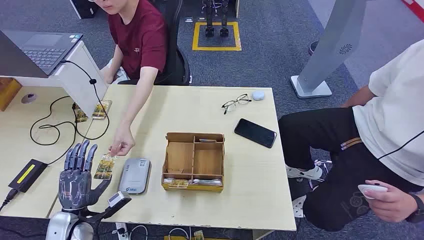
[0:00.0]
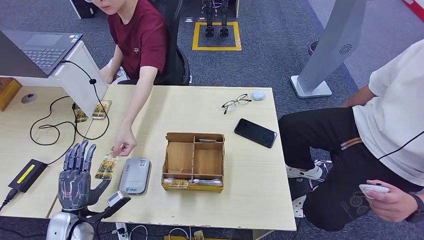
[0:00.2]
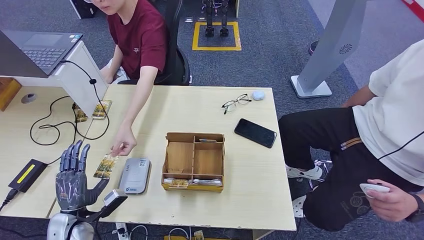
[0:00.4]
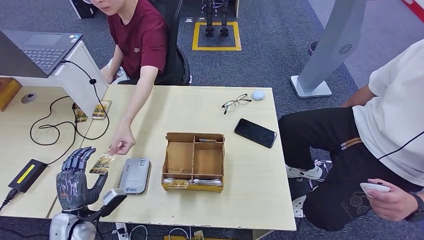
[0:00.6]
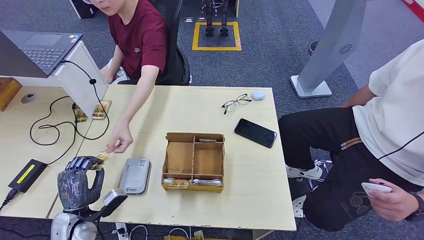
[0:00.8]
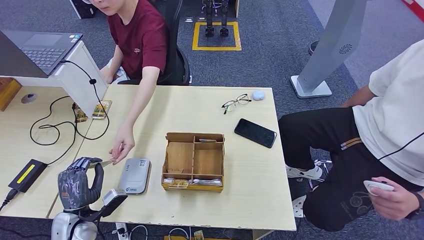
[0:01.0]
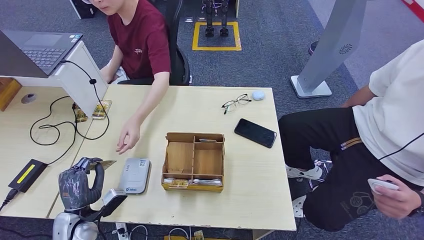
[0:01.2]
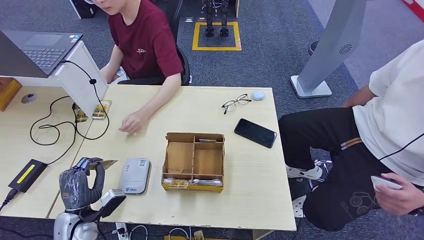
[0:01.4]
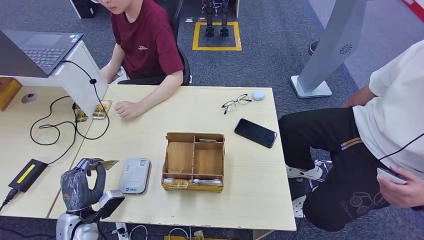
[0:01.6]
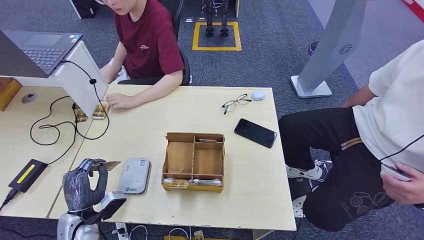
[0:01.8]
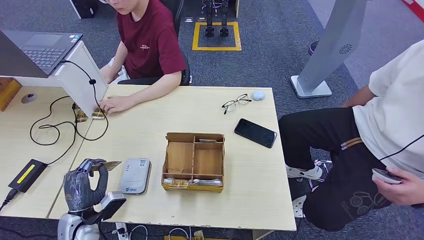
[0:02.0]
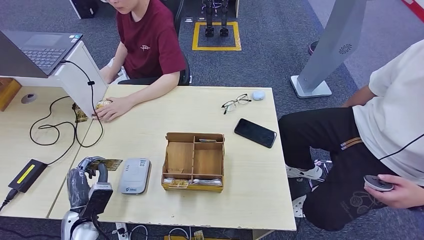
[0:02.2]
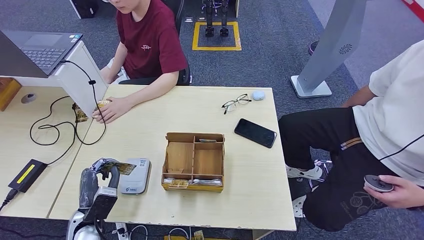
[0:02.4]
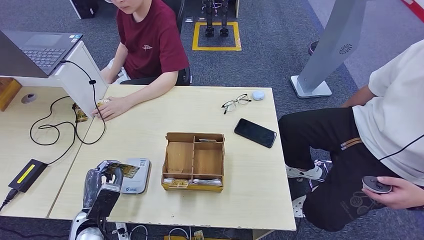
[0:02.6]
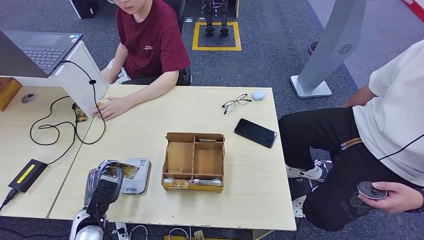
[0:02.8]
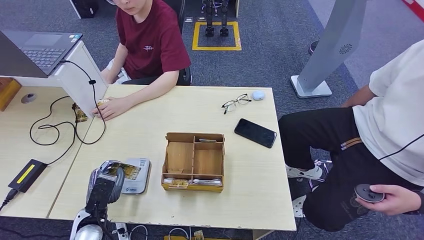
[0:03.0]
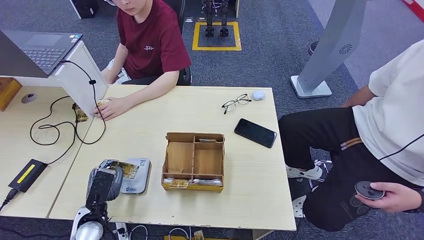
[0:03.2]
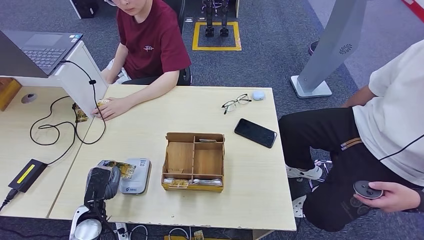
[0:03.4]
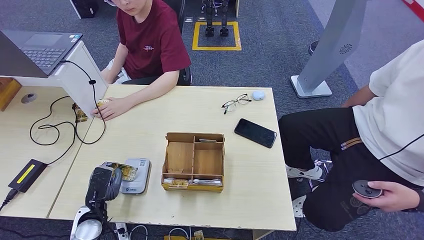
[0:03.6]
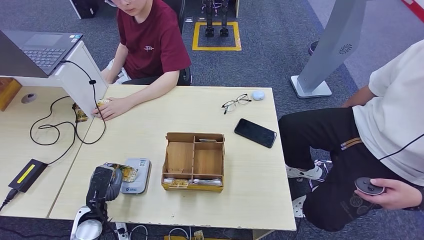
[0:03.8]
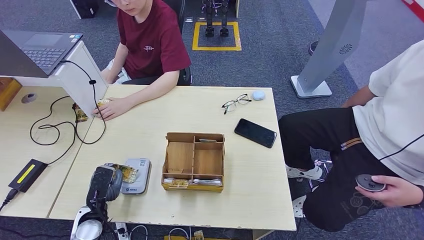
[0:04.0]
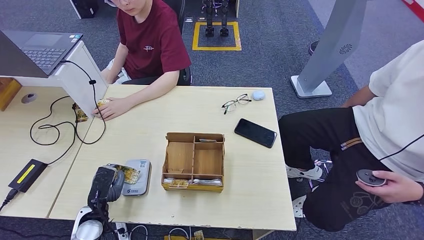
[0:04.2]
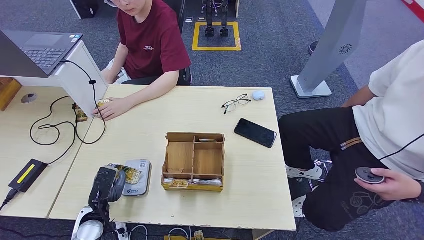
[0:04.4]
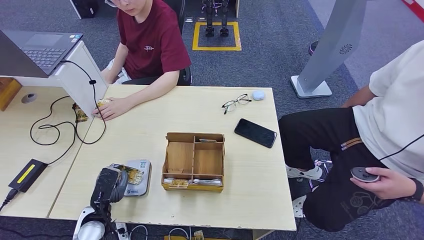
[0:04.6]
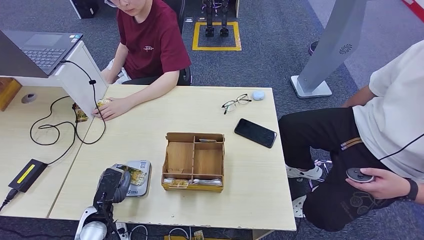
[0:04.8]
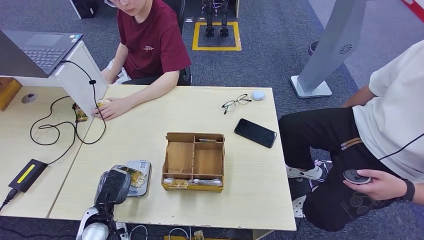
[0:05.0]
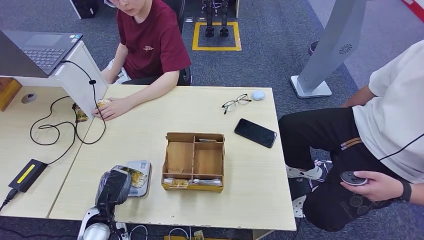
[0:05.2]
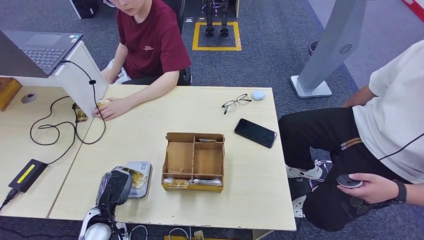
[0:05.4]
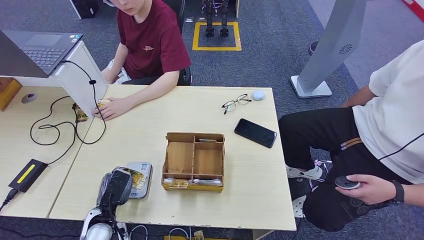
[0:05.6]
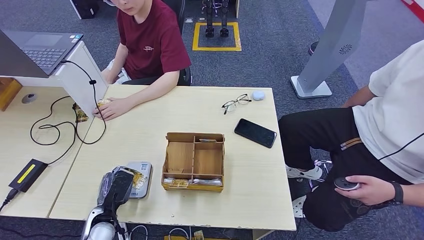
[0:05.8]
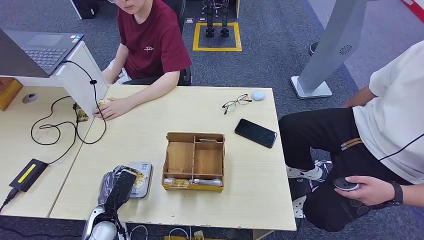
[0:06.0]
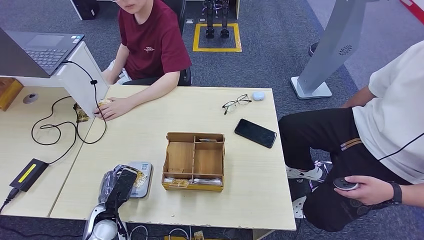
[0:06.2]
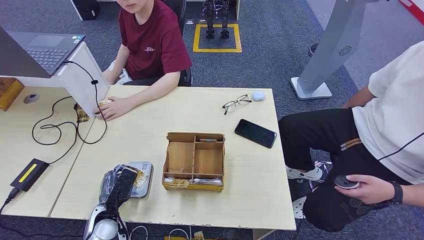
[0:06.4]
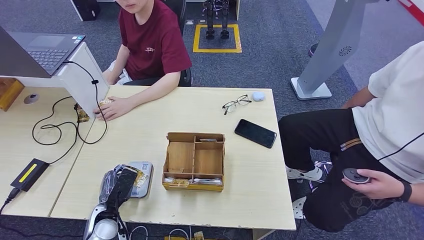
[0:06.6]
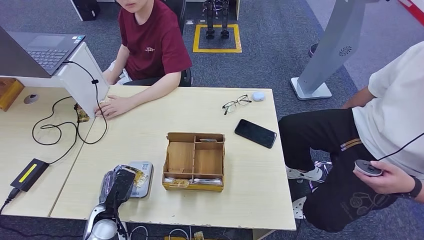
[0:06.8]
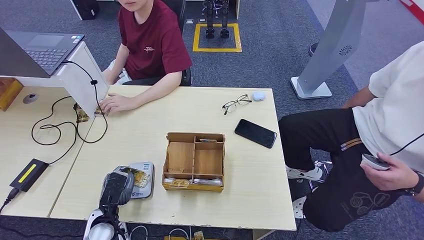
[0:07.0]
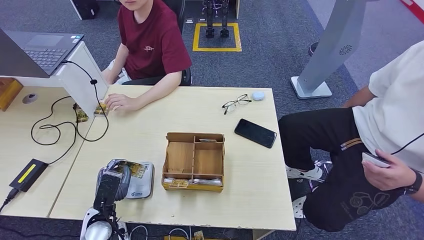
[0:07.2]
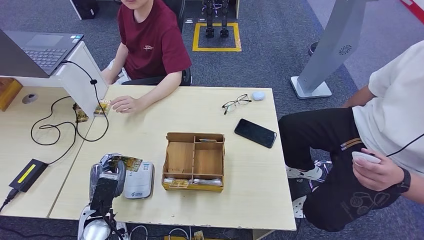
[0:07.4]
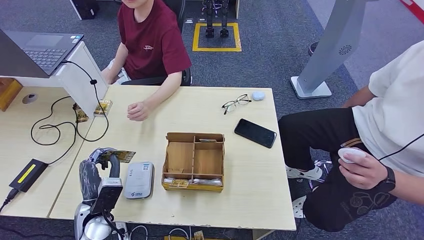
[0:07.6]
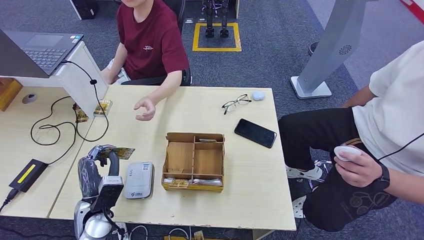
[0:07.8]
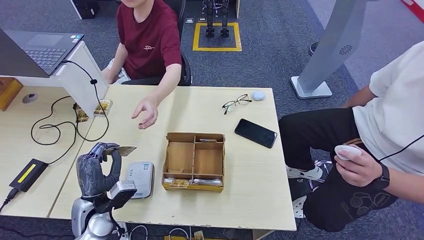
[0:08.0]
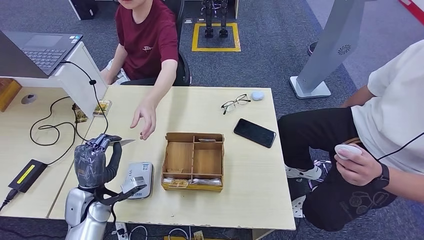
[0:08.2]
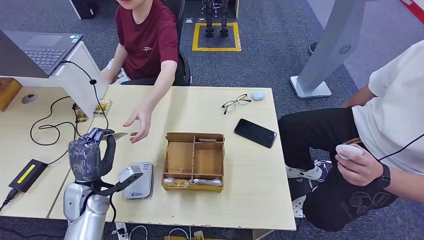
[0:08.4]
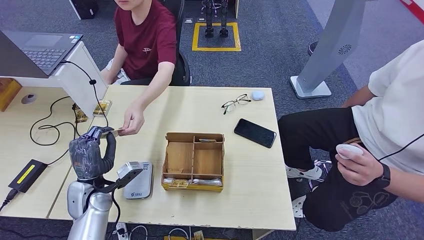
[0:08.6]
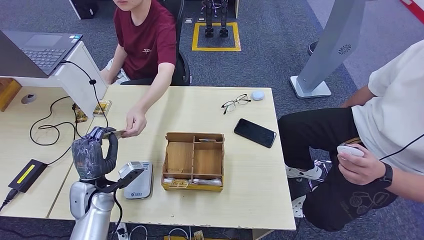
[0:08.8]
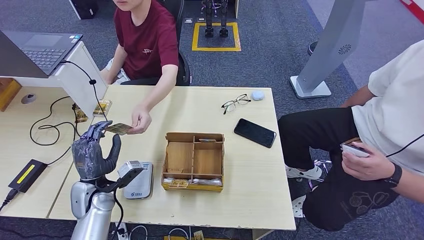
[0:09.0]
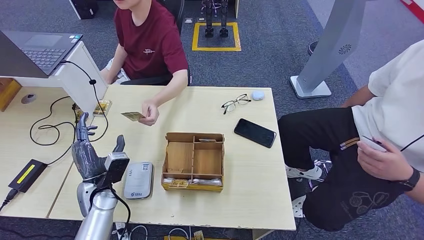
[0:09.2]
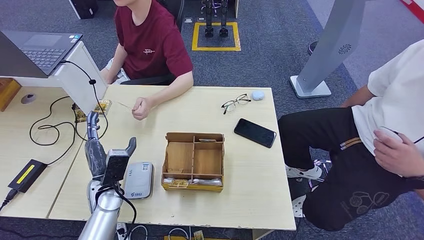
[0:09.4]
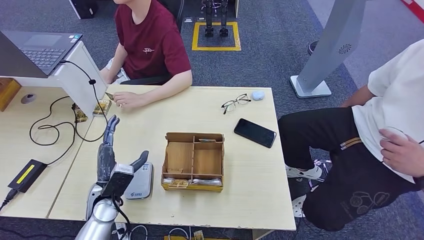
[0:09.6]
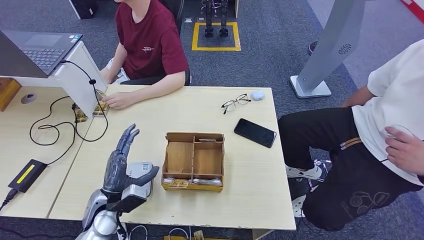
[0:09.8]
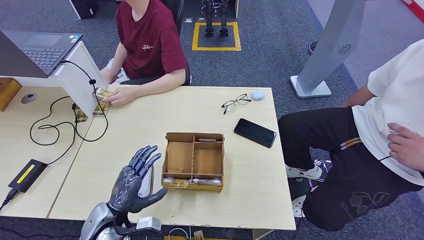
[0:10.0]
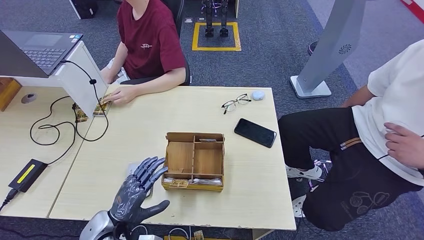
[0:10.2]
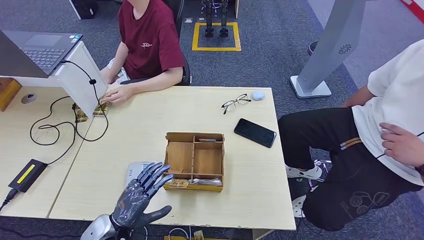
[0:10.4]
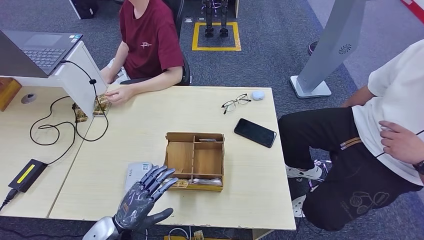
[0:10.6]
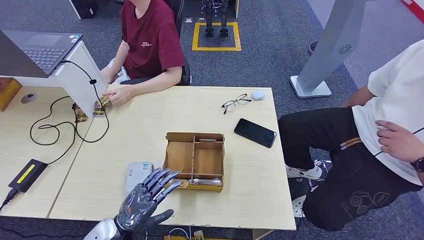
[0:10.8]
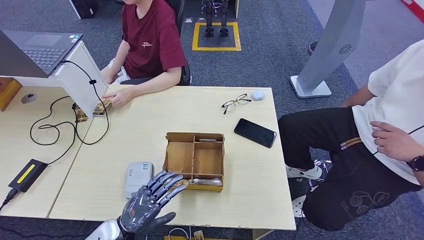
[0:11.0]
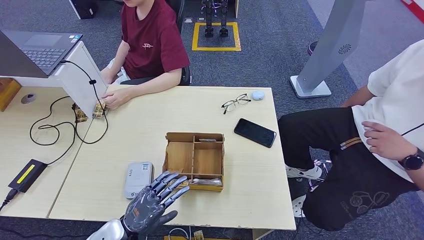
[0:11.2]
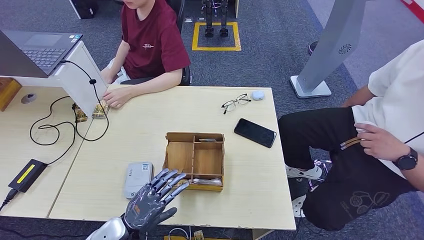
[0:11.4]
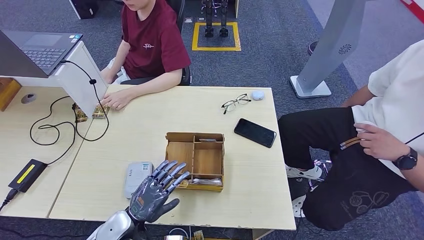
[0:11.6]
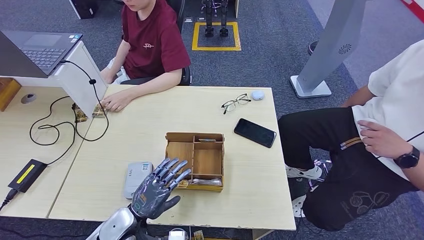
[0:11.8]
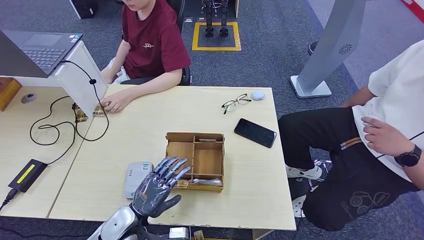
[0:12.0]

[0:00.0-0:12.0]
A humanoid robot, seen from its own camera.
Step, 0:00.0 to 0:00.8: Take the ID card from the person's hand.
Step, 0:01.2 to 0:04.4: Place the ID card on the card reader.
Step, 0:04.8 to 0:09.2: Hand the ID card to the person.
0:03.0 to 0:06.0: There are only small adjustments of the hands.
0:06.0 to 0:07.6: The left hand is displaced upward by roughly 5 cm.
0:07.6 to 0:09.0: The left hand moves forward, some 5 cm.
0:09.0 to 0:10.4: The left hand travels backward by some 10 cm.
0:10.4 to 0:12.0: The hands stay close to where they were, moving slightly.

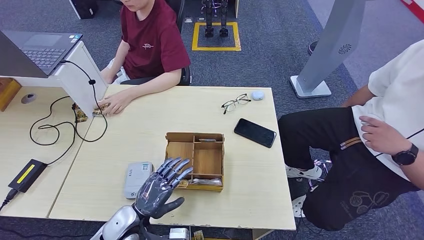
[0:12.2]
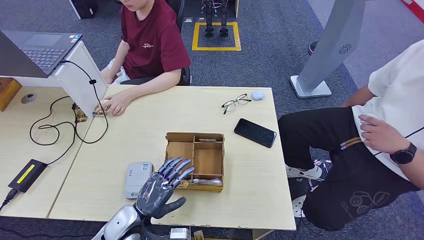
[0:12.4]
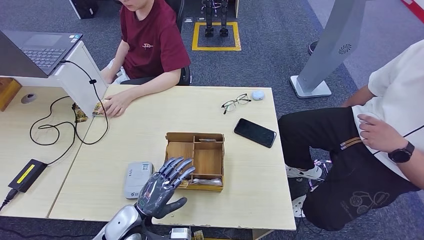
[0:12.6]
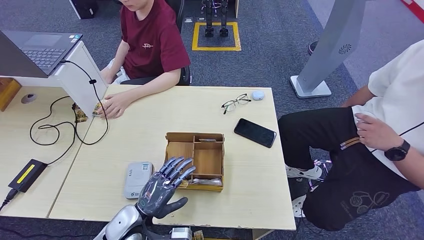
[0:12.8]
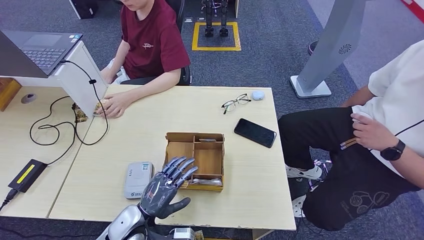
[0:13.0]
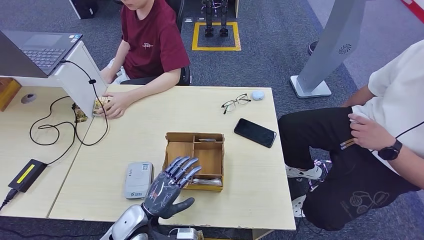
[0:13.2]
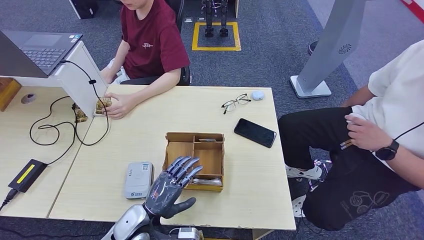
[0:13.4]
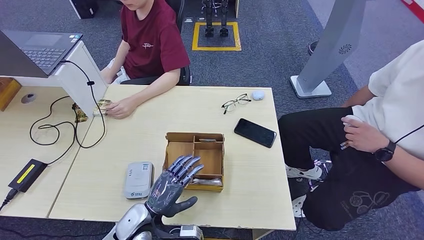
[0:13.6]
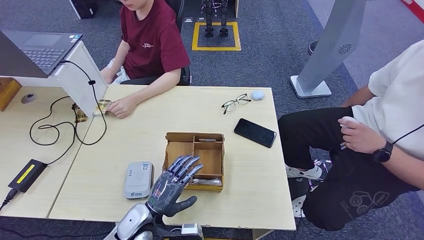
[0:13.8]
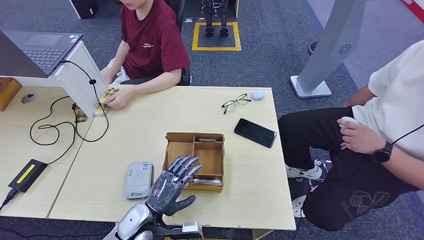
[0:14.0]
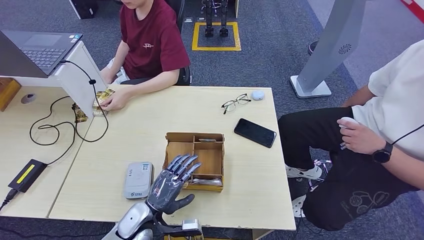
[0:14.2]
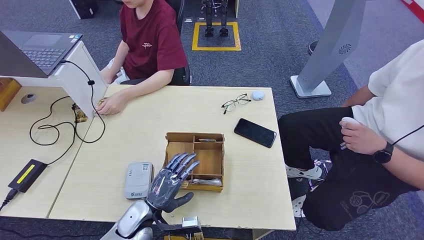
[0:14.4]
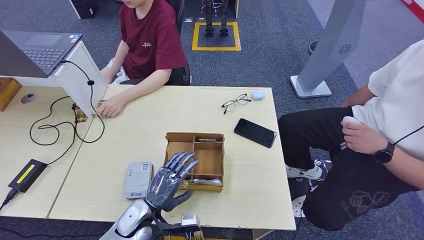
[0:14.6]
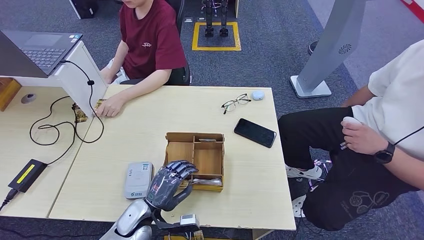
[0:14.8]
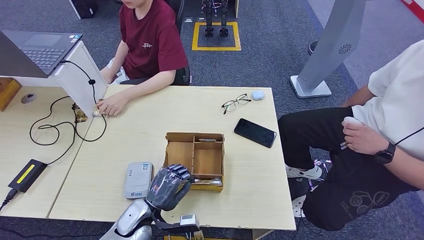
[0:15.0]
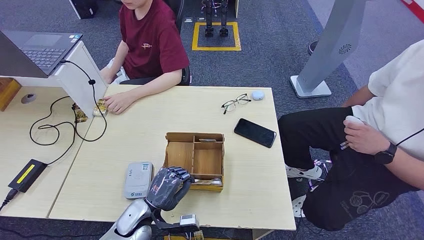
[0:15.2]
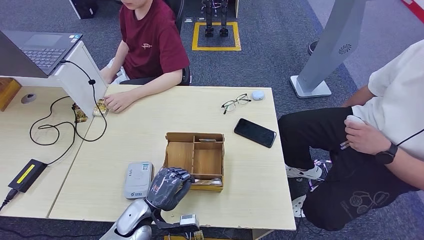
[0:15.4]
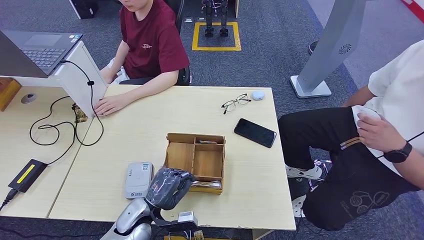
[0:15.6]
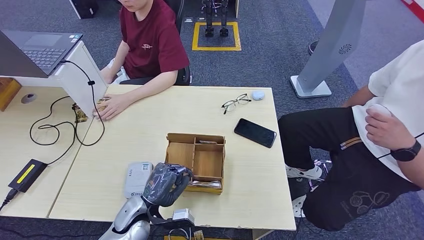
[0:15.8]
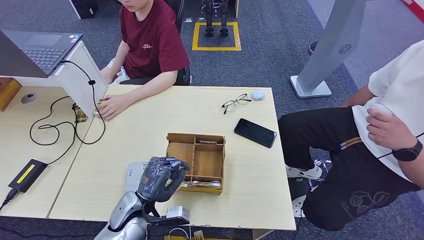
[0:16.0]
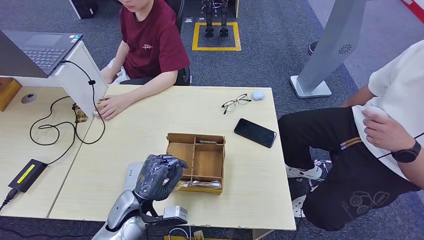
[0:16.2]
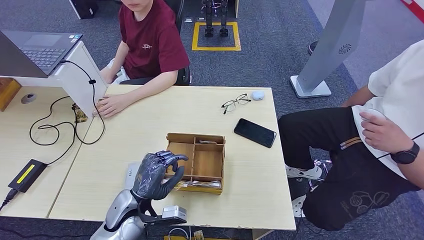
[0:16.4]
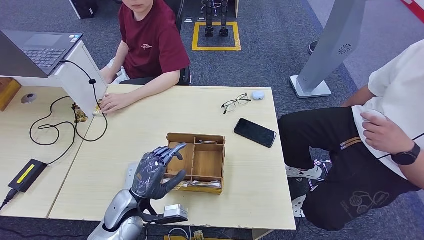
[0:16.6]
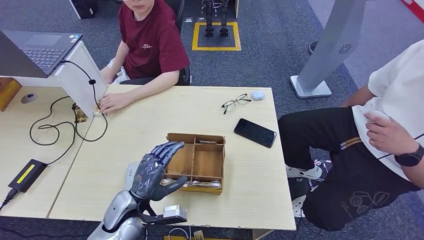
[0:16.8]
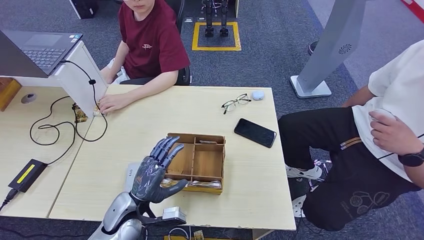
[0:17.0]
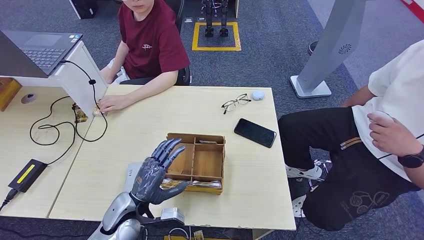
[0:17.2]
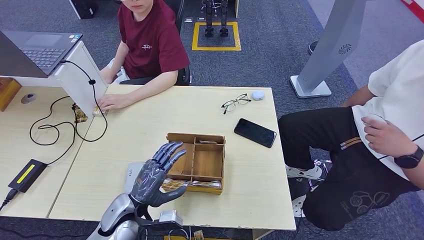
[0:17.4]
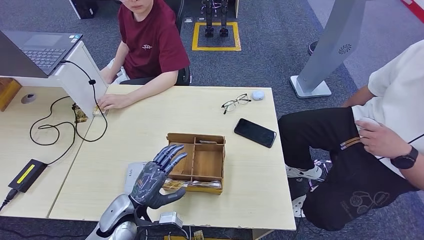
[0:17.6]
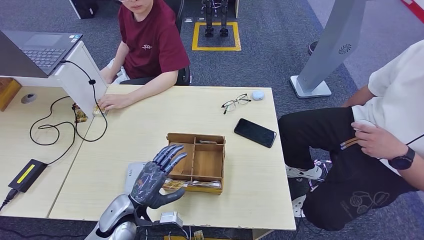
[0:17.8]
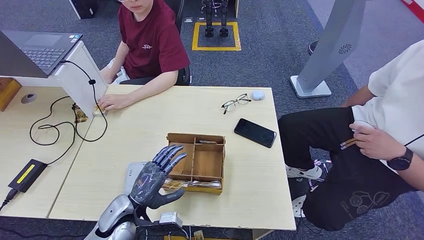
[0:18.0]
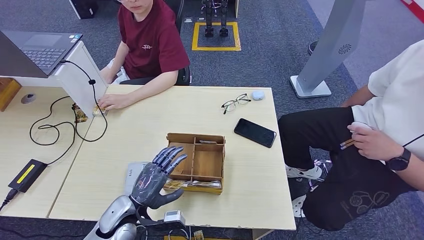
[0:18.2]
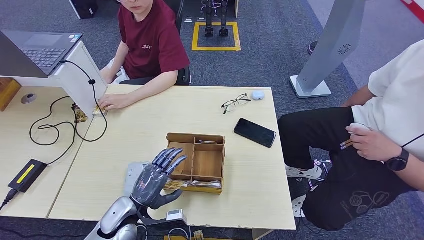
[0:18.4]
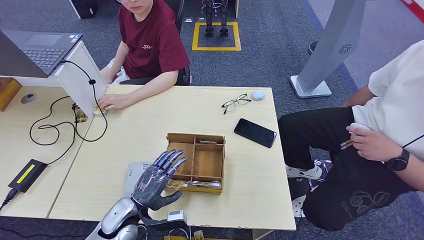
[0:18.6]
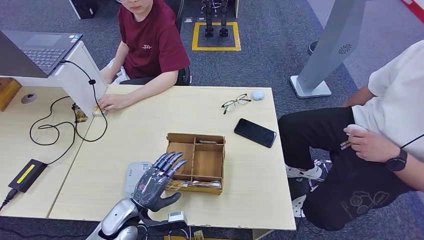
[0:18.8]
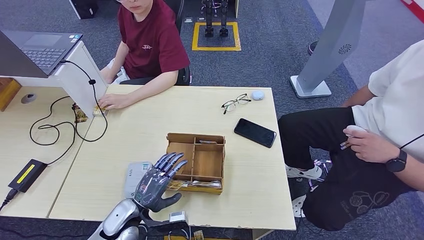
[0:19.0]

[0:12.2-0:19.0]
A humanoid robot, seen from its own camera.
0:12.2 to 0:19.0: The hands move only a little.
